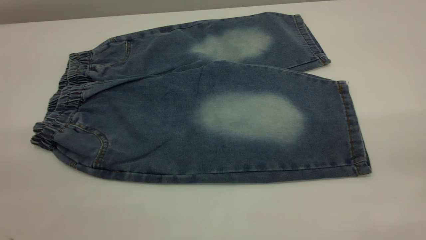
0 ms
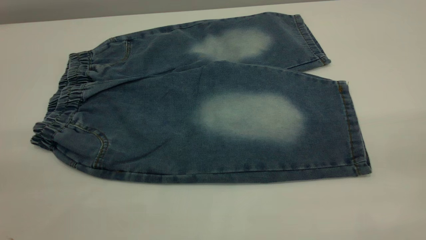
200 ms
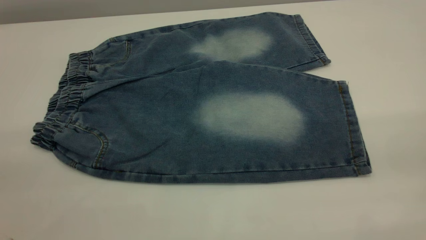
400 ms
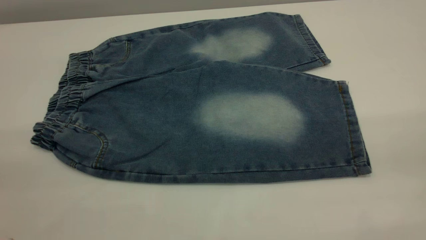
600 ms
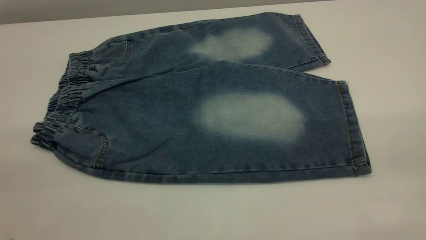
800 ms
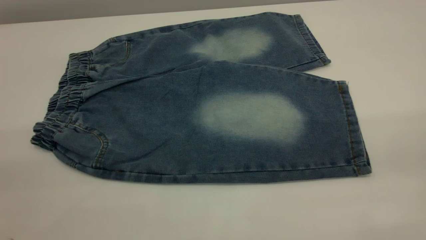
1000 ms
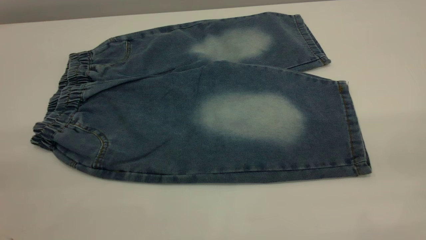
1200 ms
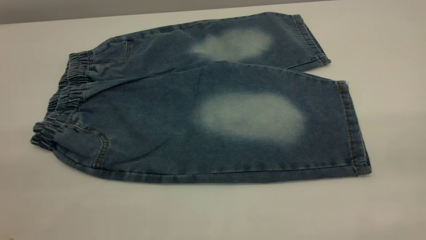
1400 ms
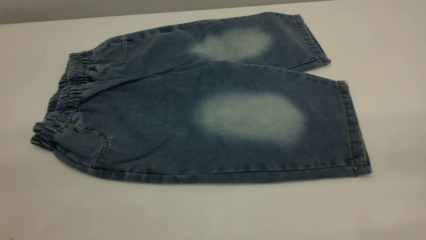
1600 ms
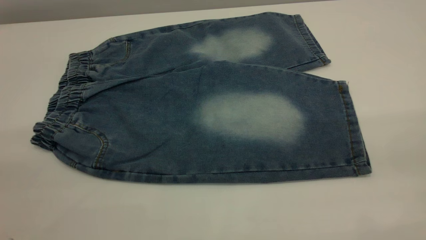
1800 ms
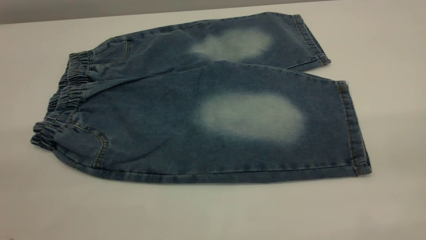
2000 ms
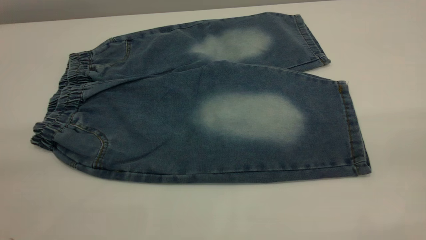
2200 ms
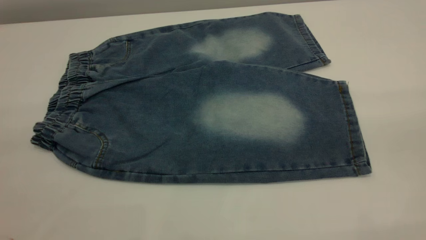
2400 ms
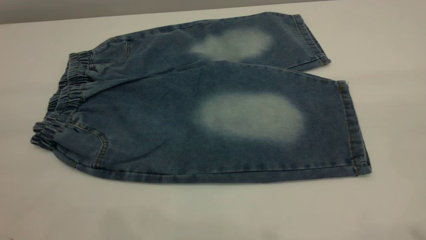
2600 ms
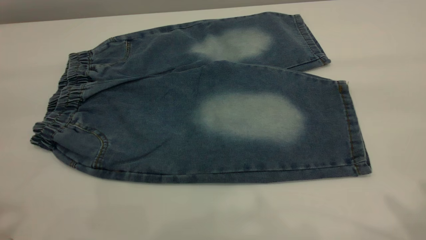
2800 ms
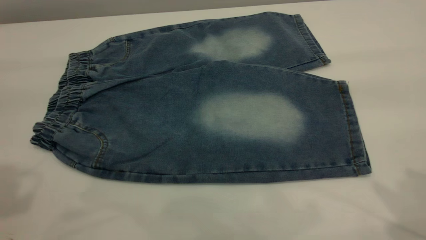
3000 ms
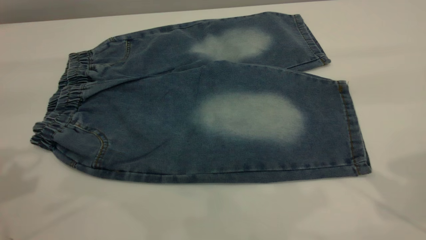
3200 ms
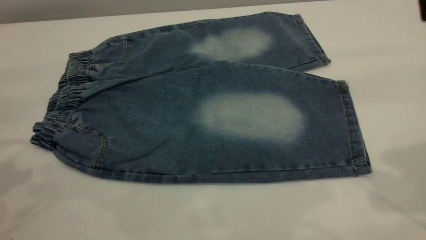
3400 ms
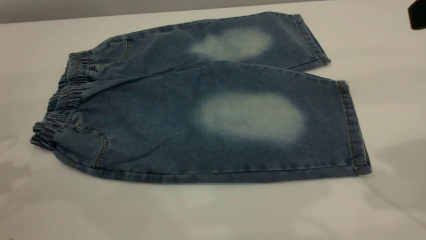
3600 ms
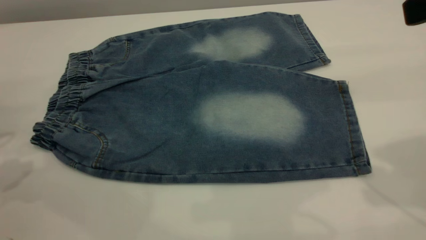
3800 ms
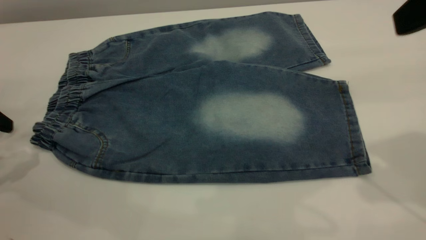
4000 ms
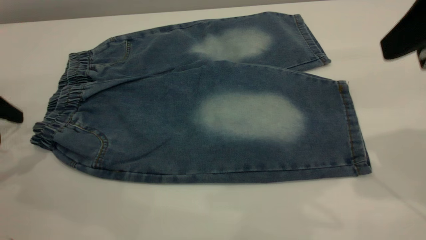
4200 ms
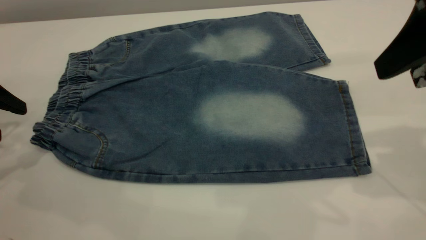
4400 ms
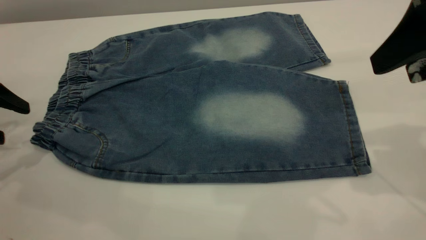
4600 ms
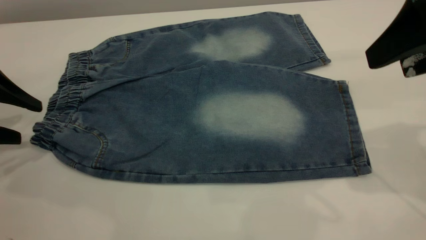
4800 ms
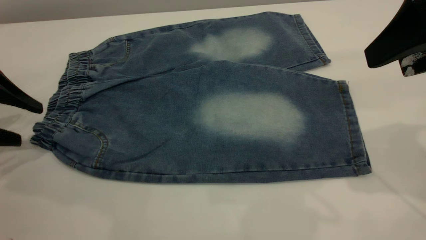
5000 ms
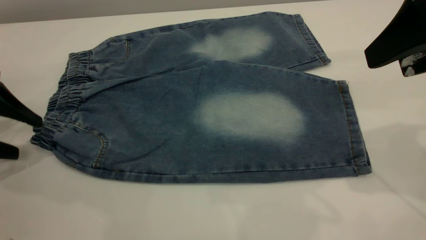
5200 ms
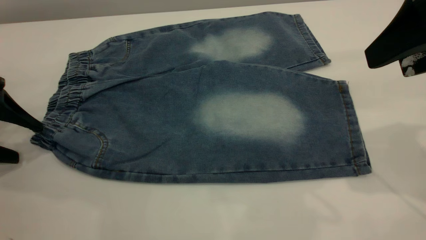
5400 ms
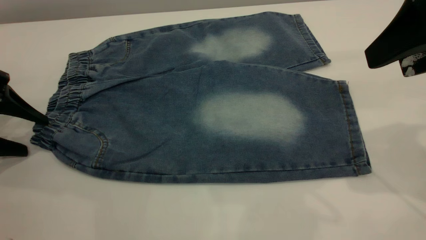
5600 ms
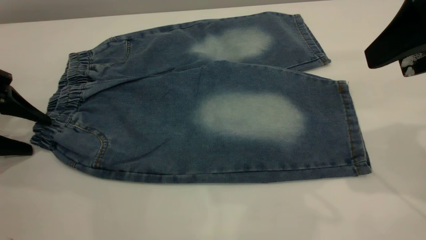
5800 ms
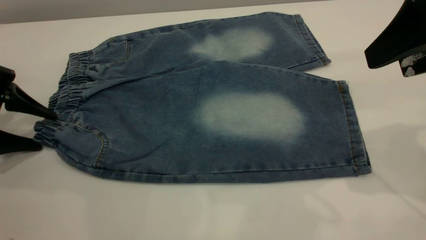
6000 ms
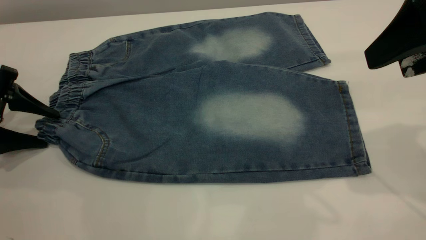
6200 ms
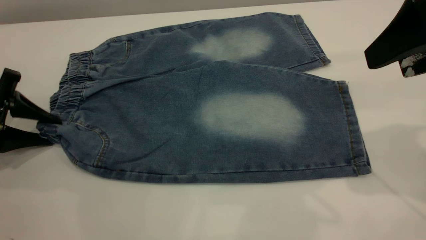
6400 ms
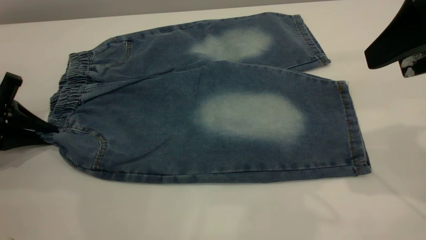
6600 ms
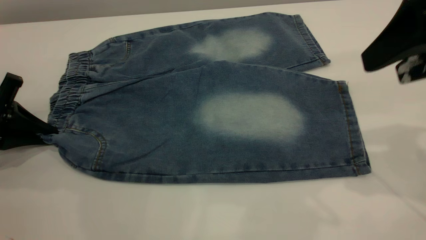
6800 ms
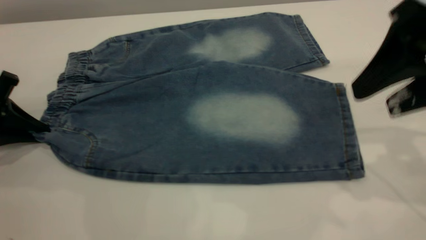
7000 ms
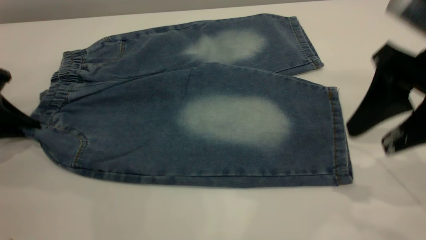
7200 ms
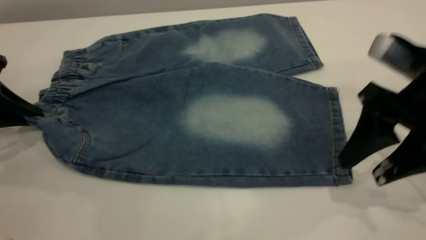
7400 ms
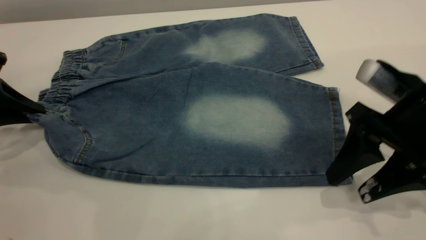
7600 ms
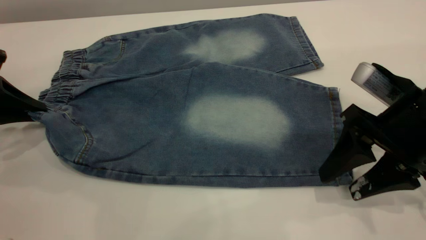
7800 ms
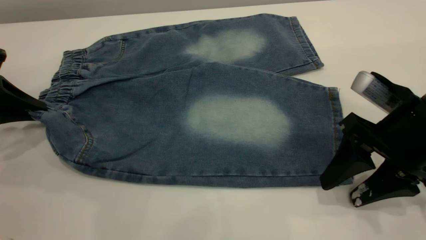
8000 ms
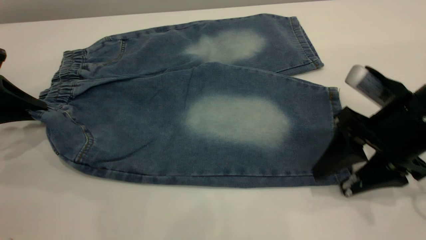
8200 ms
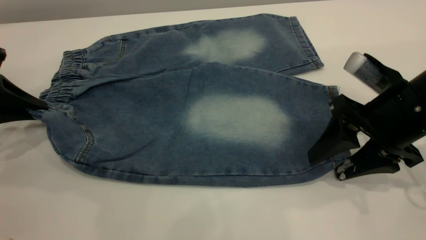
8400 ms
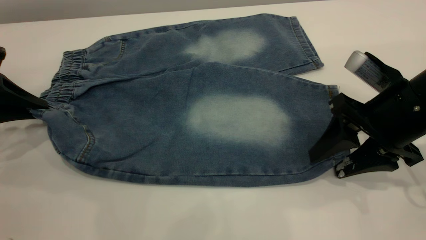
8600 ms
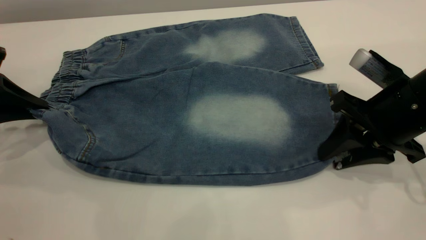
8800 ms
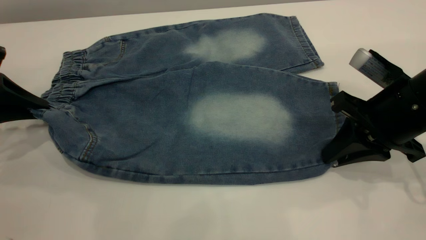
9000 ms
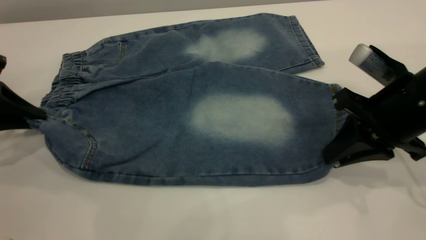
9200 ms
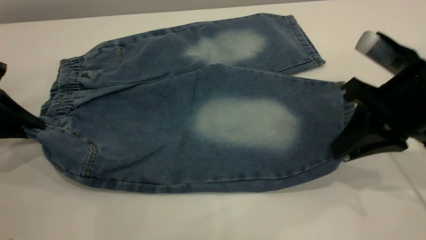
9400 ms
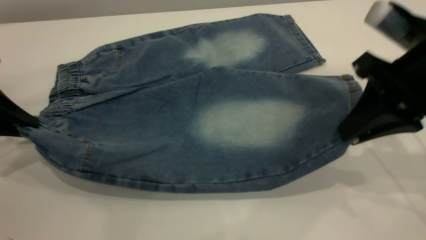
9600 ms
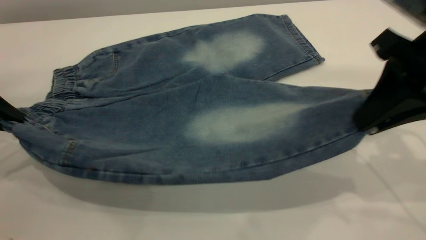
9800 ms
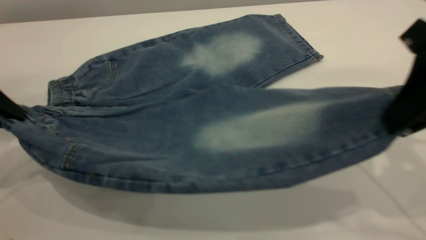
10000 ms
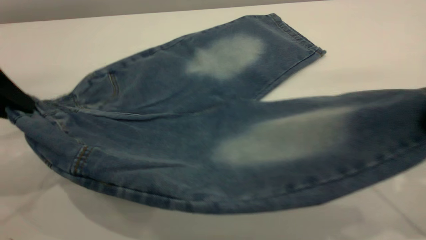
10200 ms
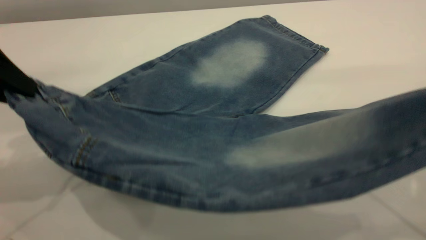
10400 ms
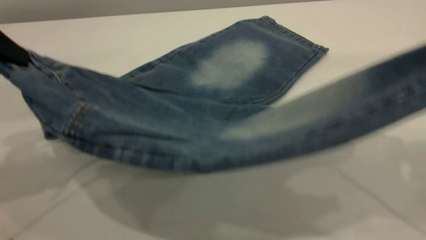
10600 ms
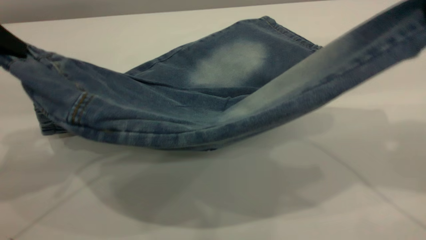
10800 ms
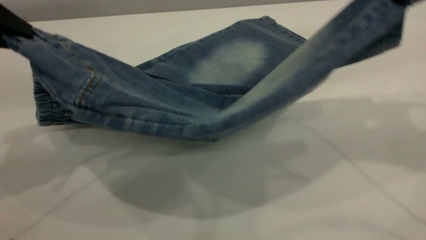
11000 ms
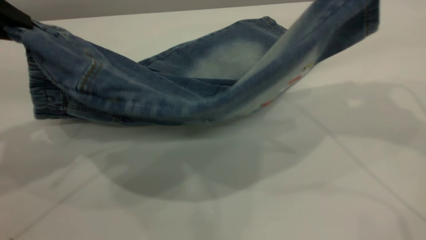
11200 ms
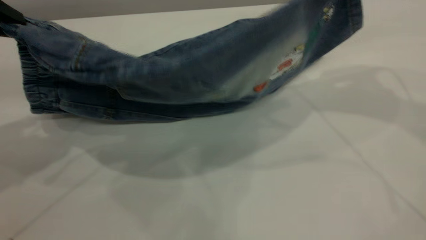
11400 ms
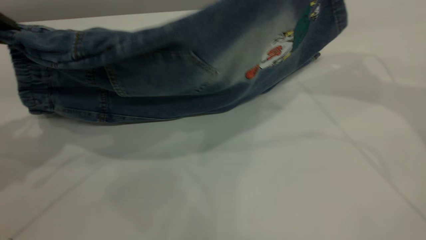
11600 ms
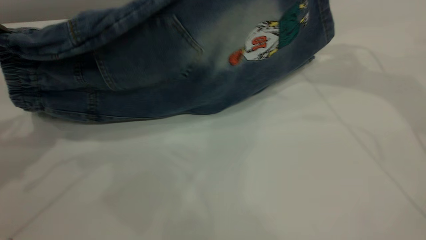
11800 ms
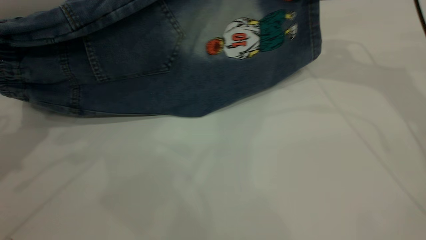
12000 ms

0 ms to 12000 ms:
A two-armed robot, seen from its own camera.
0 ms to 1600 ms: The two grippers keep their place.
3000 ms to 4400 ms: The left gripper moves downward and forward, some 20 cm, while the right gripper moves downward and forward, about 10 cm.
4400 ms to 6000 ms: The left gripper goes approximately 5 cm downward.
6000 ms to 7600 ms: The right gripper heads downward, covering about 15 cm, while the left gripper closes its fingers.
7600 ms to 9000 ms: The right gripper closes its fingers.
9000 ms to 10400 ms: The left gripper is displaced upward, to the right and backward by roughly 15 cm. The right gripper is displaced upward and backward by approximately 20 cm.
10400 ms to 12000 ms: The right gripper heads forward, covering roughly 25 cm.

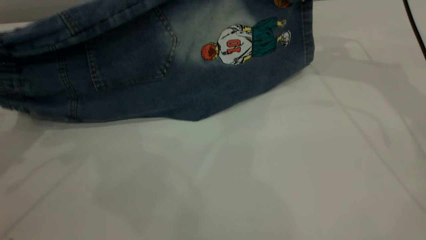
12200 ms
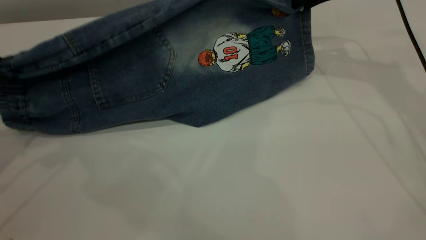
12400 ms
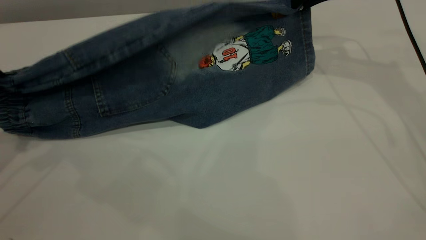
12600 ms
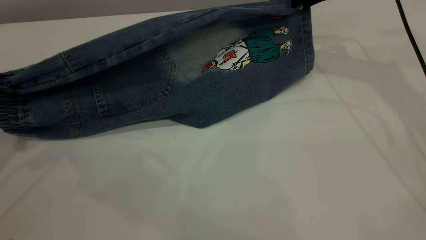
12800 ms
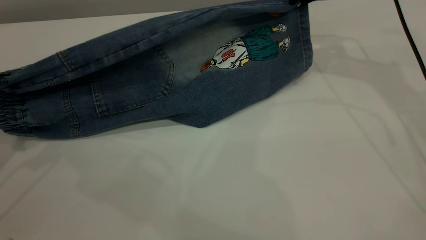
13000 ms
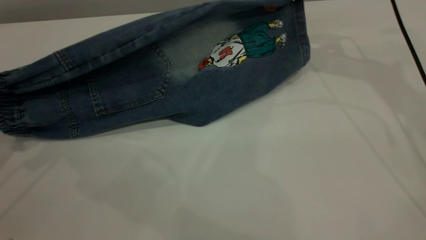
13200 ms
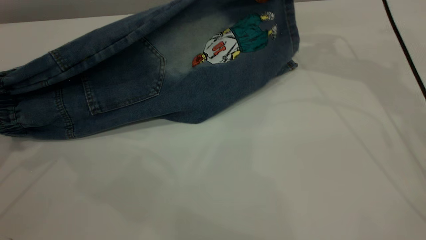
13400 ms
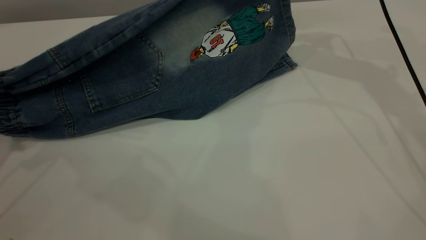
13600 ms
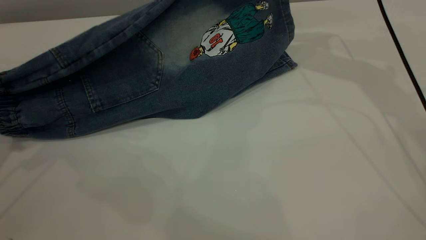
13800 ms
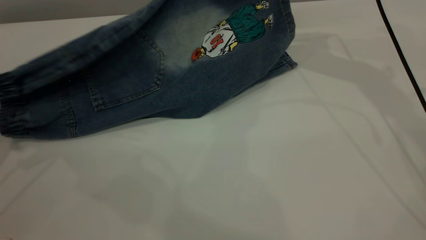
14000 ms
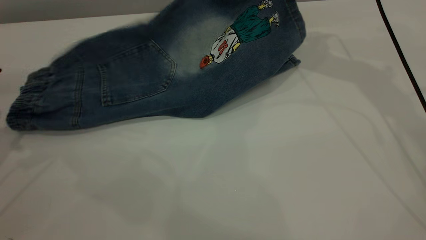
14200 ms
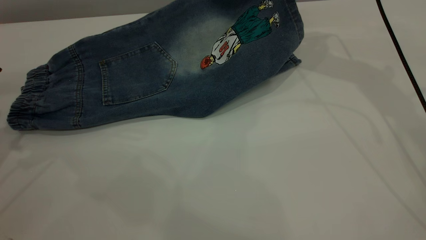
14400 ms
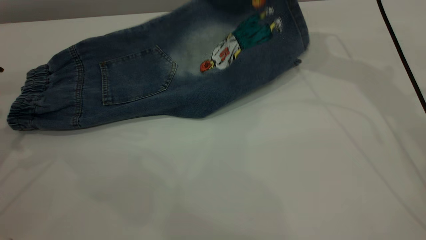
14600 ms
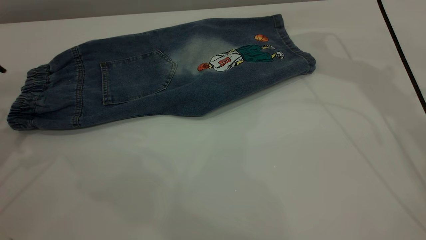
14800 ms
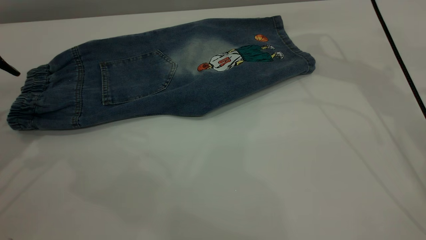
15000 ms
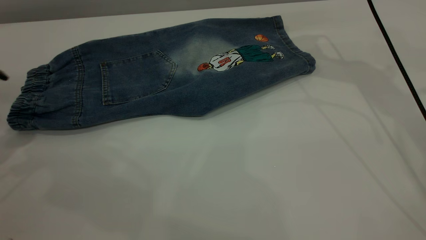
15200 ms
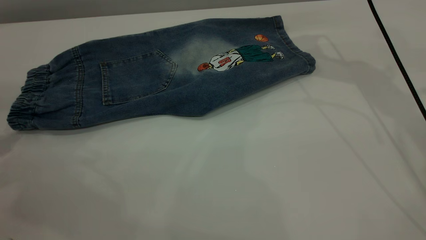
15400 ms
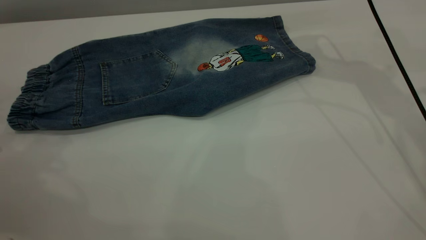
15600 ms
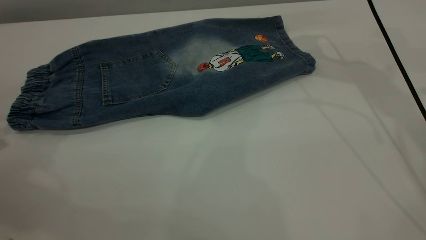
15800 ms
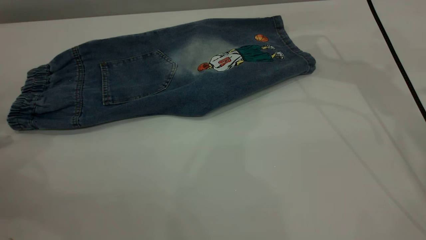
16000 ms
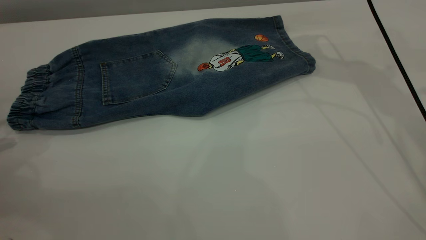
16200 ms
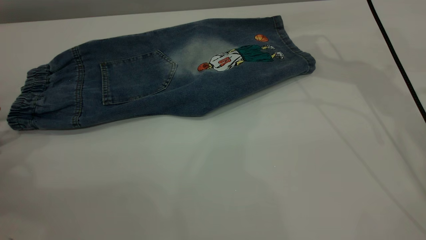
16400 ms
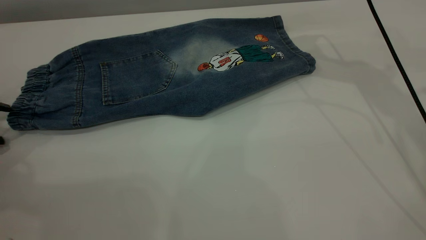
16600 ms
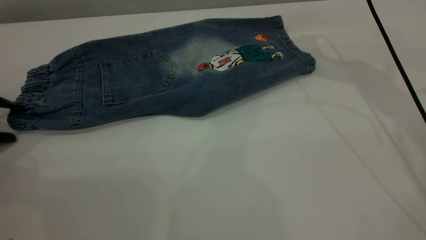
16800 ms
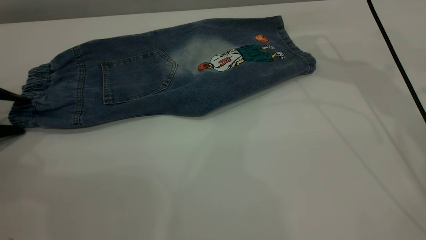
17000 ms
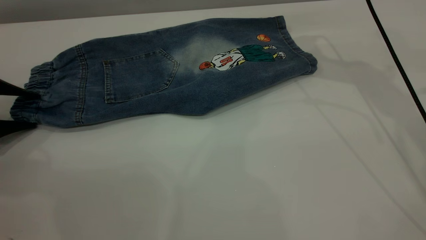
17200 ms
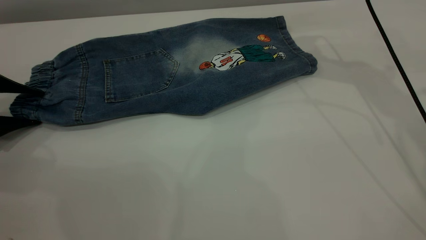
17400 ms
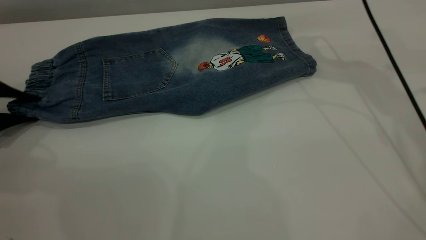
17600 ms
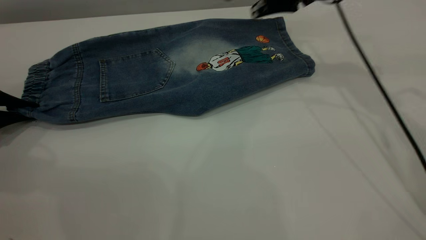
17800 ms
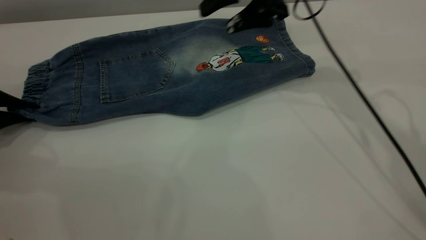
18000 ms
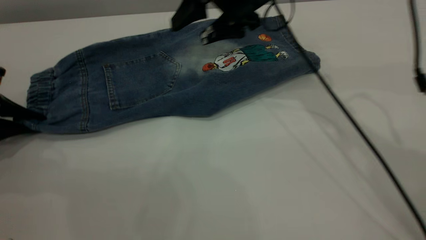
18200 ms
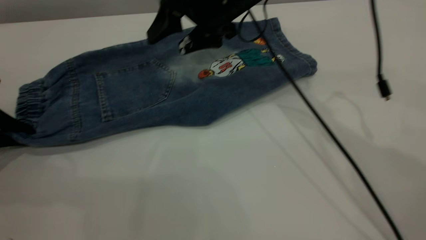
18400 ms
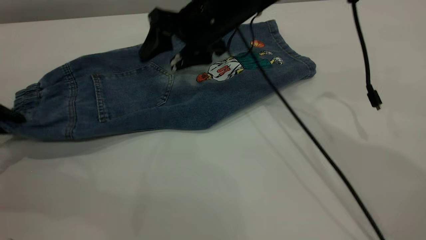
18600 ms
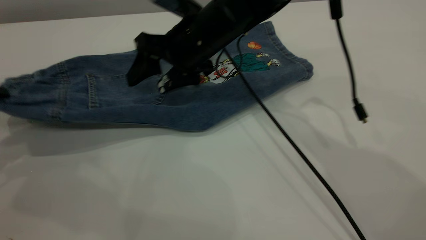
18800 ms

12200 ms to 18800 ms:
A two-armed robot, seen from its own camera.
Step, 12200 ms to 15000 ms: Fold the bottom of the pants upward.
12200 ms to 13800 ms: The grippers make only small movements.
13800 ms to 15400 ms: The left gripper is displaced to the left by roughly 5 cm, and opens. Meanwhile the right gripper opens its fingers.
15400 ms to 17200 ms: The left gripper travels downward and forward by roughly 10 cm.
17200 ms to 18800 ms: The right gripper shifts some 20 cm to the left and downward, while the left gripper goes about 10 cm upward, and closes up.
